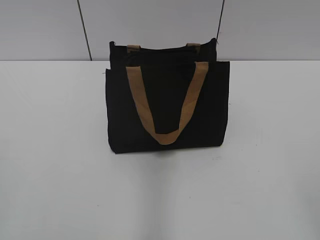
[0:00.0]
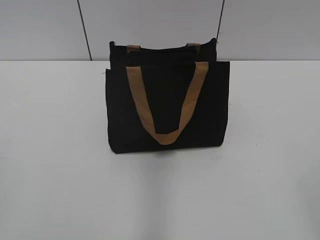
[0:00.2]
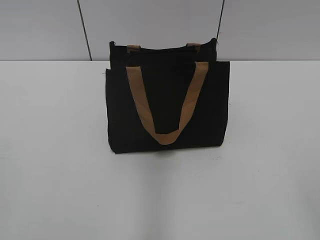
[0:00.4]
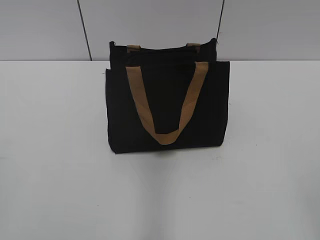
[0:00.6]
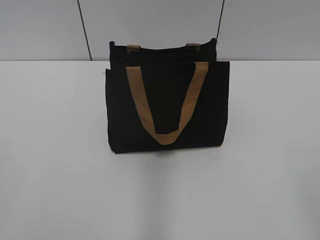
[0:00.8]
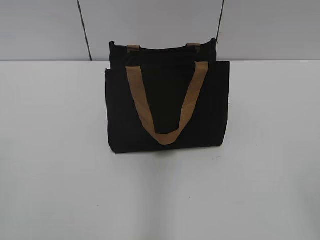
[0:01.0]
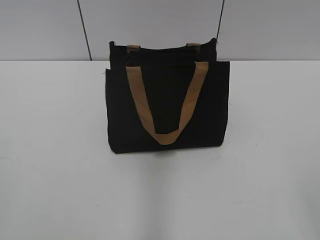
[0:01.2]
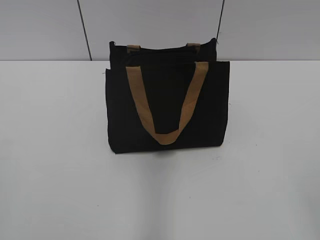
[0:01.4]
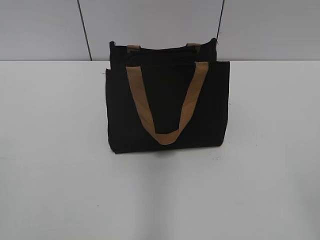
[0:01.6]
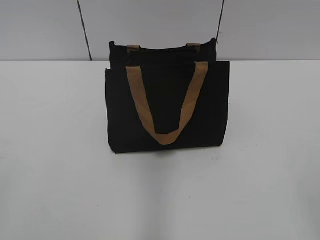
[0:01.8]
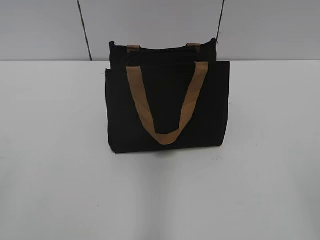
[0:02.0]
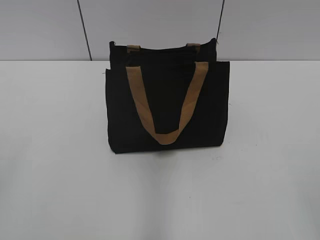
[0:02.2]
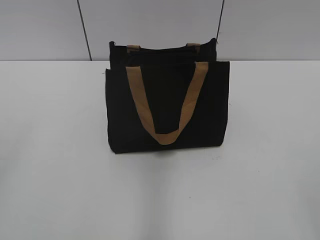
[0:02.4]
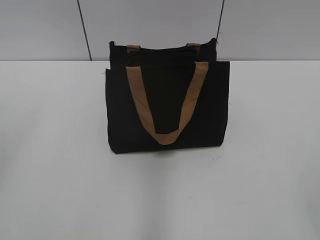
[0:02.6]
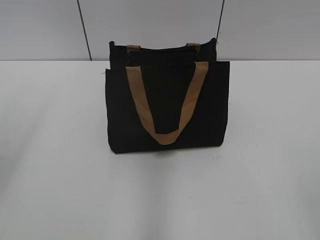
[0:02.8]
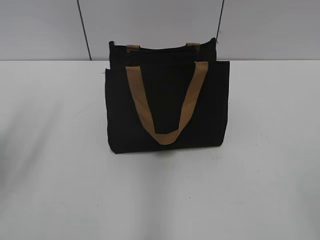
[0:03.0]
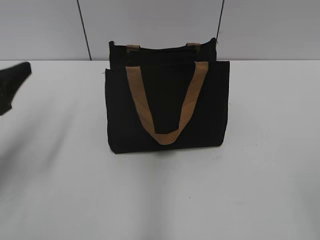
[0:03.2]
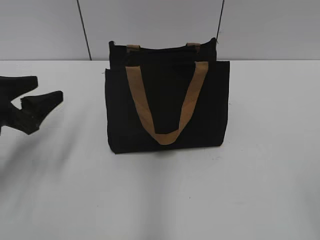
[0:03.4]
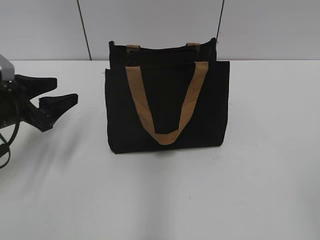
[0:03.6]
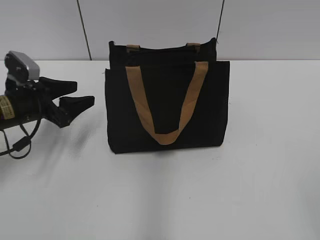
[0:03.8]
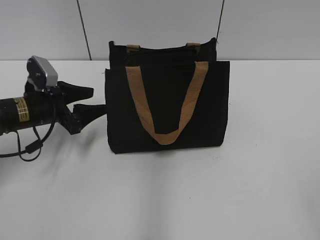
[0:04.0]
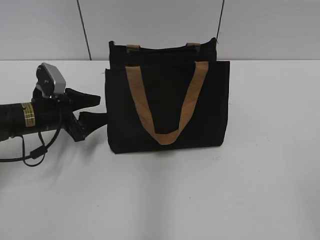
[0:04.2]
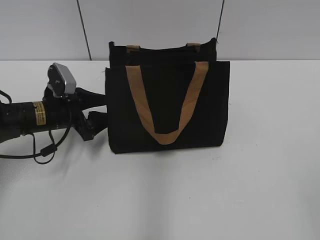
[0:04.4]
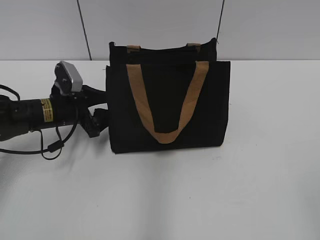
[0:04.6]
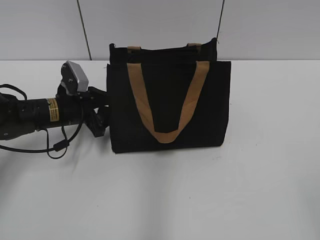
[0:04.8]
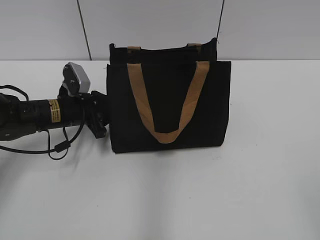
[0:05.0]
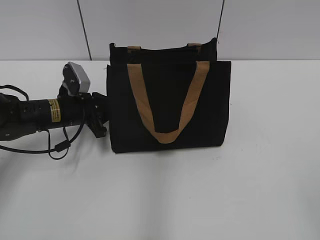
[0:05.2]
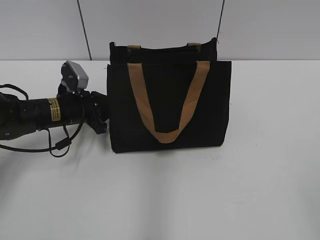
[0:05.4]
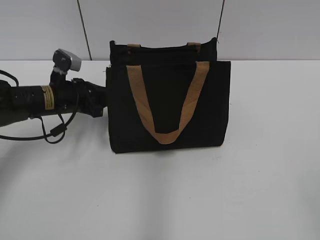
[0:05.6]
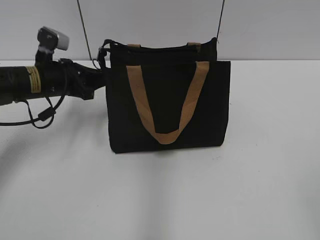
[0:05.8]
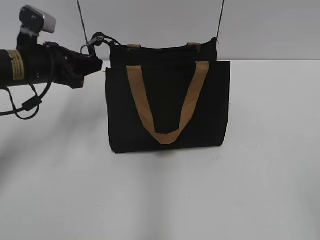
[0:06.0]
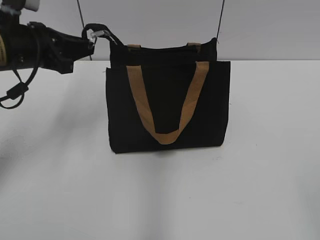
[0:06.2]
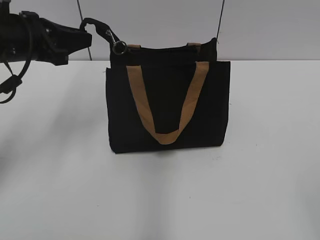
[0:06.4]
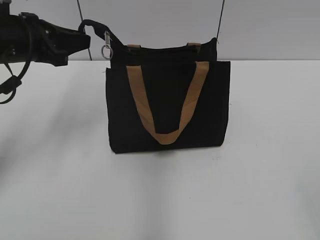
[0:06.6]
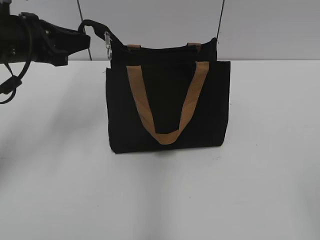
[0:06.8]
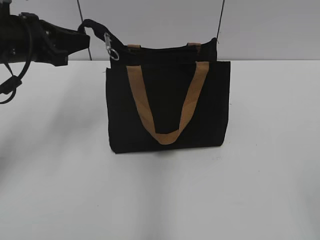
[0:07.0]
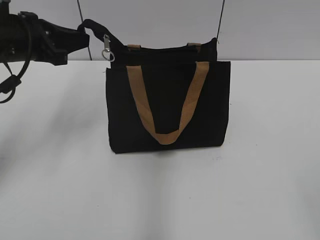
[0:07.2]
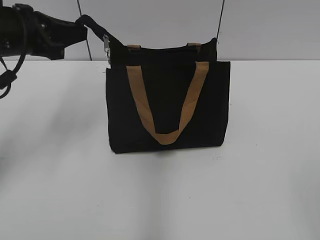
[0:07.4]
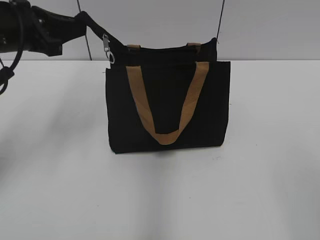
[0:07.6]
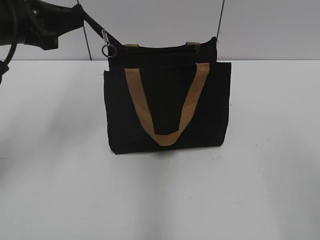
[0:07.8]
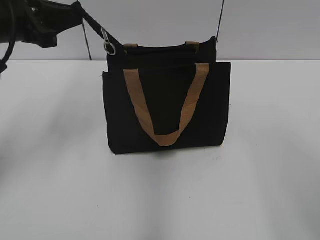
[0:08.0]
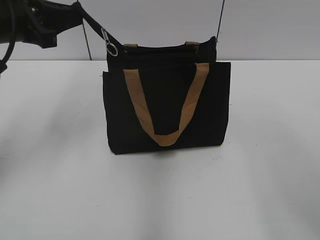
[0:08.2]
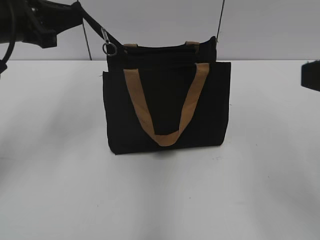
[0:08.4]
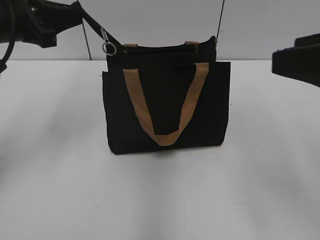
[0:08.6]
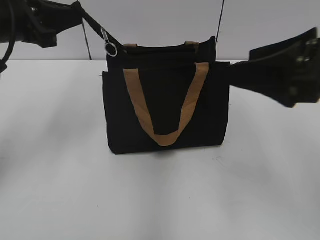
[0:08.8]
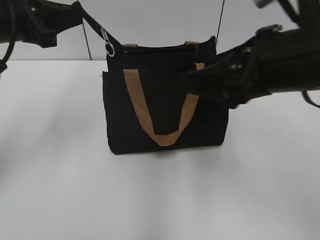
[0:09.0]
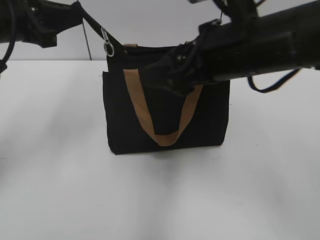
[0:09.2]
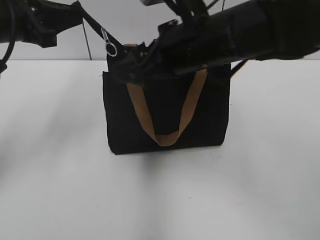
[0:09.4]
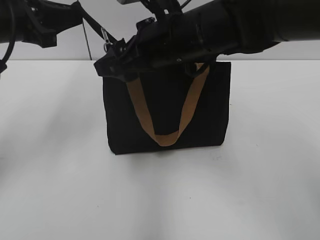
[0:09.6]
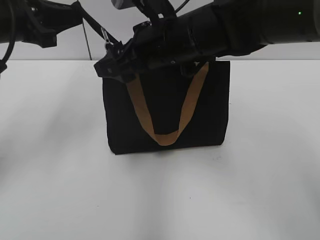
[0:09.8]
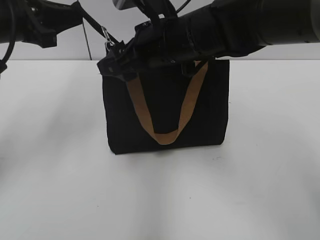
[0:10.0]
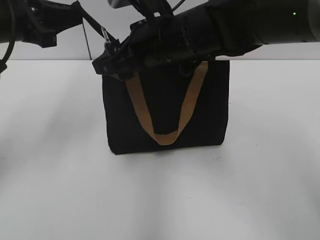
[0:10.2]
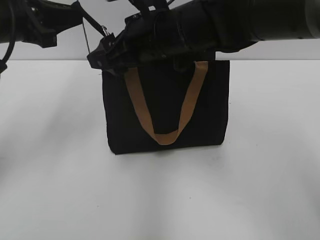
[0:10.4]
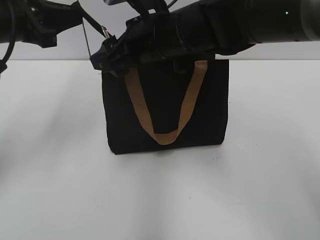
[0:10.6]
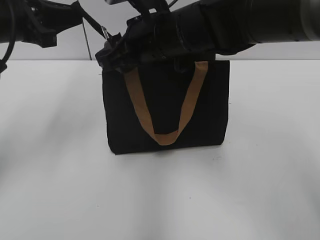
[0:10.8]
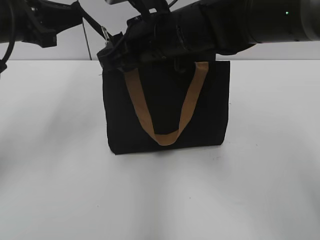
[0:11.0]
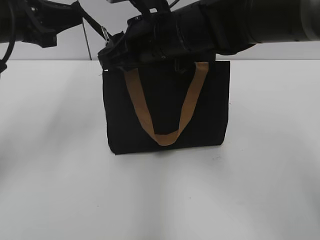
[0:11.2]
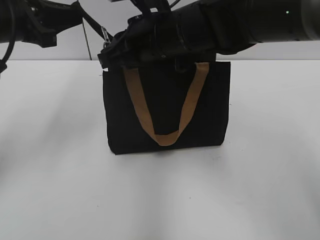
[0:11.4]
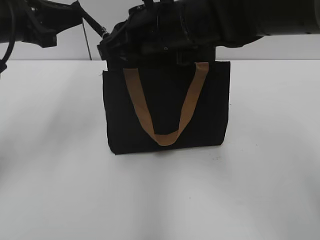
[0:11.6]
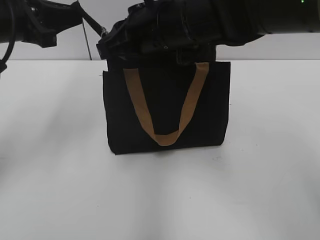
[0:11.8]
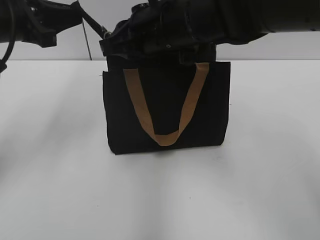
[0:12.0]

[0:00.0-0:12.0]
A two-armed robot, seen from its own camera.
0:01.6 to 0:03.0: The left gripper moves forward, about 15 cm, and opens up.
0:03.0 to 0:04.4: The left gripper goes about 30 cm downward, forward and to the right.
0:04.4 to 0:06.0: The left gripper is displaced upward by roughly 10 cm, and closes up.
0:06.0 to 0:07.6: The left gripper heads upward, covering about 10 cm.
0:07.6 to 0:09.0: The right gripper heads forward and to the left, covering some 20 cm.
0:09.0 to 0:10.4: The right gripper travels to the left and forward by some 20 cm.
0:10.4 to 0:12.0: The right gripper closes.

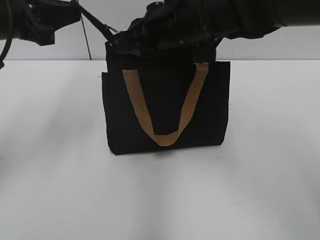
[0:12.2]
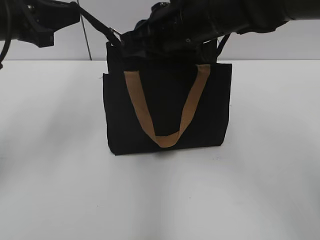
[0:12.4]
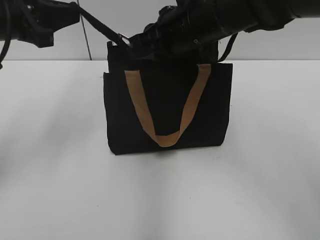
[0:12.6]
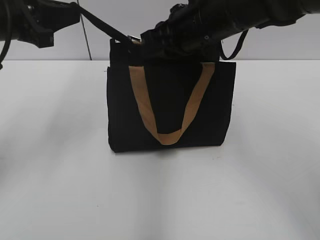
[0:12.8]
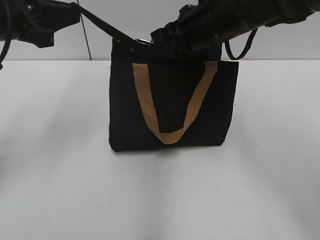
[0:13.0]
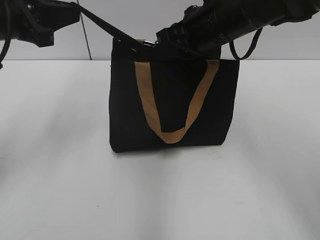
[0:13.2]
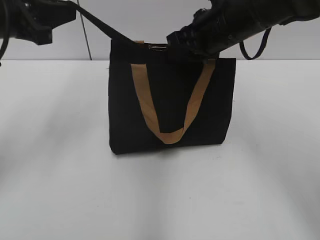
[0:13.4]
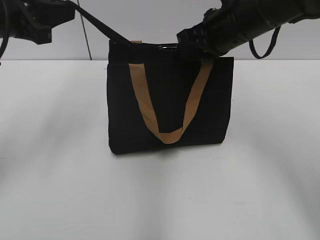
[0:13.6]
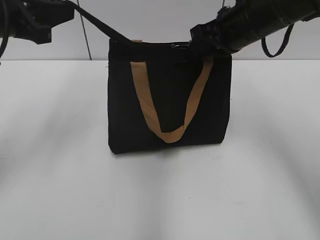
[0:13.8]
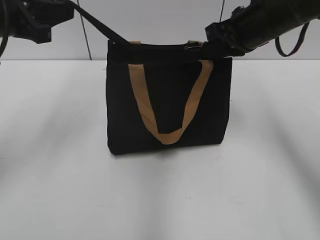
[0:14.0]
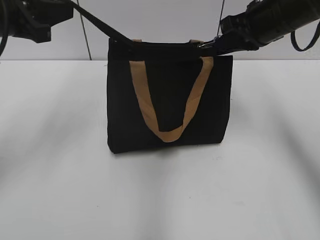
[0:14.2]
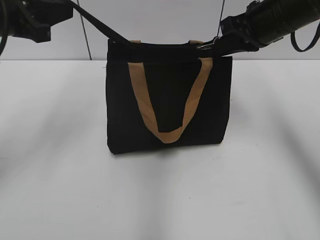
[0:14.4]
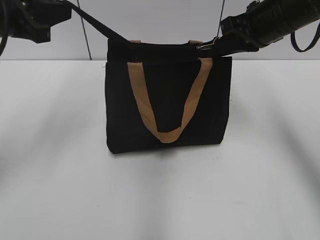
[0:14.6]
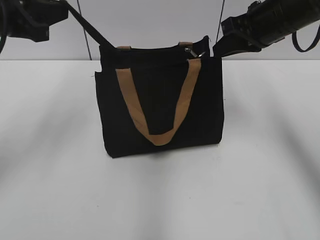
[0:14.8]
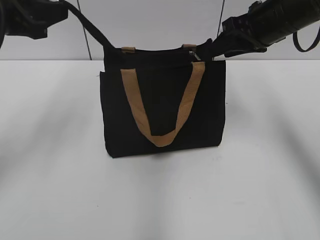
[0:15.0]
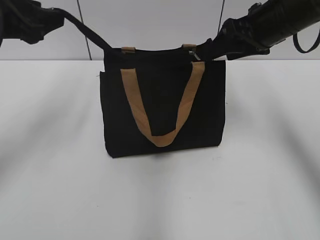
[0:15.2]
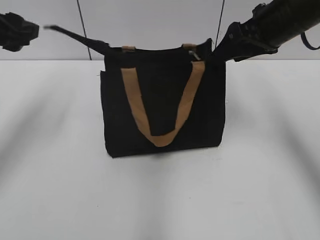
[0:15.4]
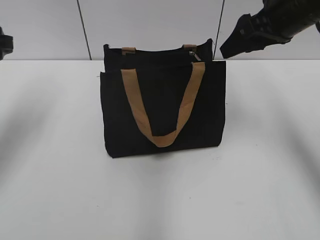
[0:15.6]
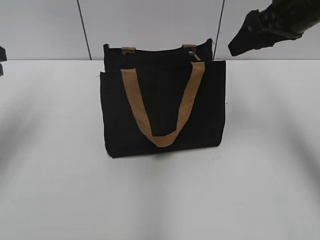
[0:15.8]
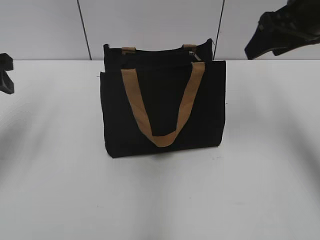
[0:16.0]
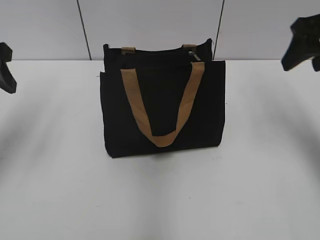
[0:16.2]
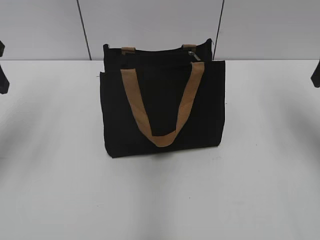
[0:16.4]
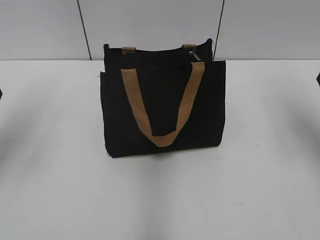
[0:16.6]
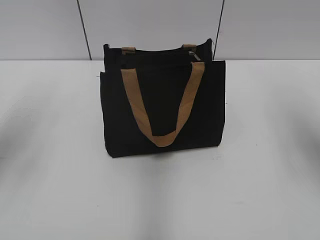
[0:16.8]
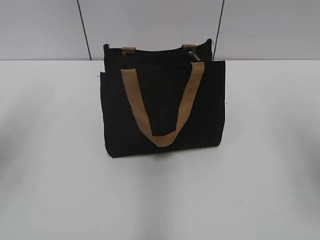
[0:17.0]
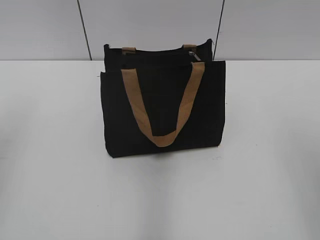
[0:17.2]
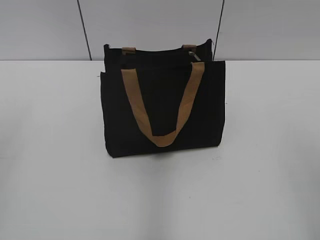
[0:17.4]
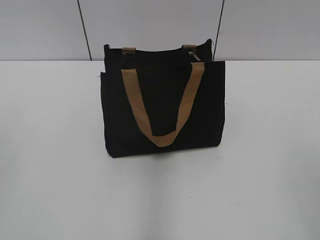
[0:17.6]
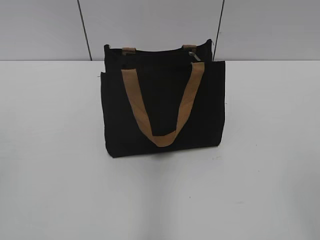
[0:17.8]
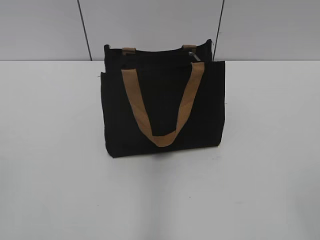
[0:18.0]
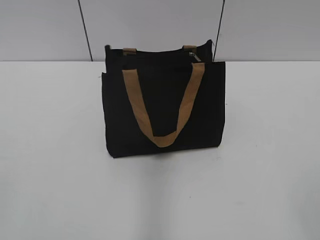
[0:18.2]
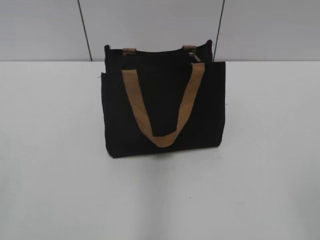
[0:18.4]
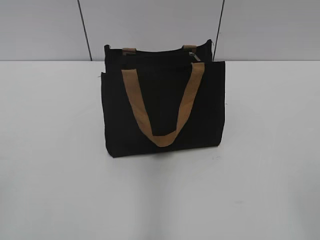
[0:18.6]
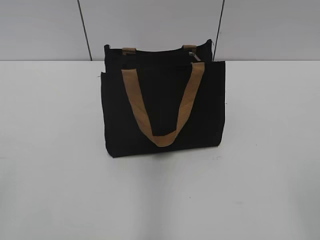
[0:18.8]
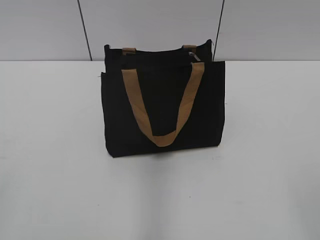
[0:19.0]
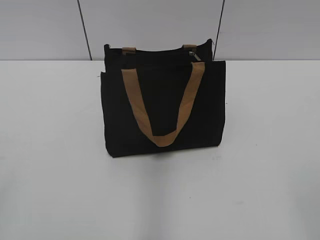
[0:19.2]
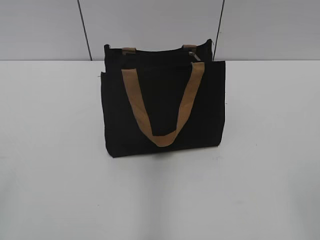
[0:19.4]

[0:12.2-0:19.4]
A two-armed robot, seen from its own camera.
Step, 0:12.2 to 0:14.6: Zip up the bag with your right hand.
Step, 0:15.0 to 0:15.4: Grab the zipper with your left hand.
0:12.2 to 0:13.6: The right gripper moves to the right, some 10 cm.
0:13.6 to 0:15.0: The right gripper shifts roughly 10 cm to the right, and opens.
0:15.0 to 0:16.6: The left gripper changes place by approximately 5 cm, and opens its fingers. Meanwhile the right gripper moves to the right and backward, roughly 15 cm, and opens its fingers.
0:16.6 to 0:18.0: Both grippers move backward, approximately 30 cm.

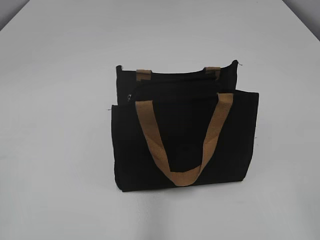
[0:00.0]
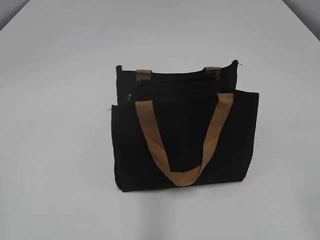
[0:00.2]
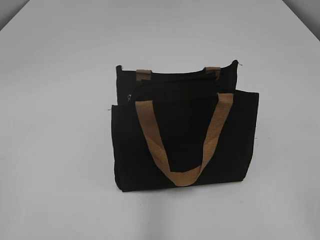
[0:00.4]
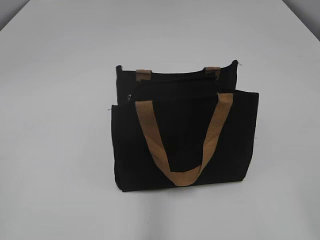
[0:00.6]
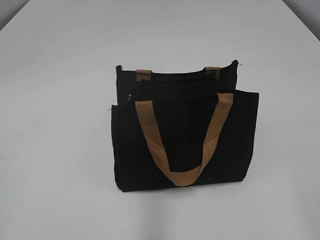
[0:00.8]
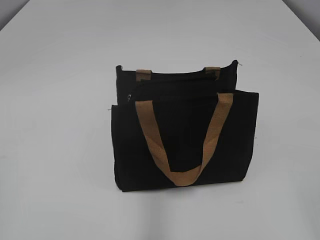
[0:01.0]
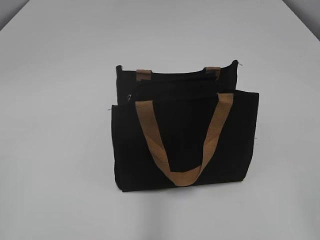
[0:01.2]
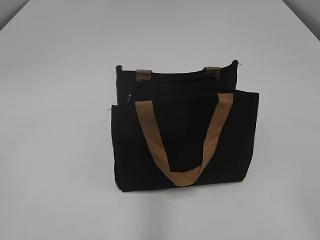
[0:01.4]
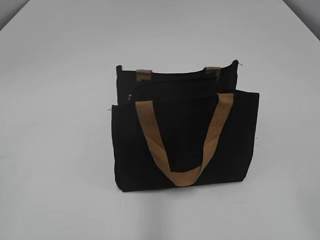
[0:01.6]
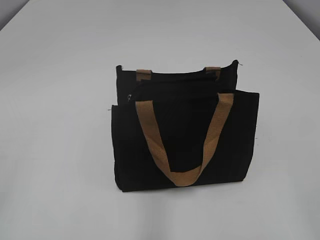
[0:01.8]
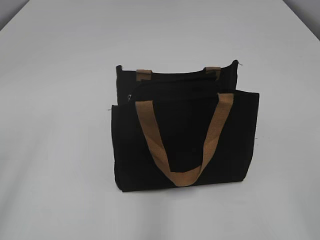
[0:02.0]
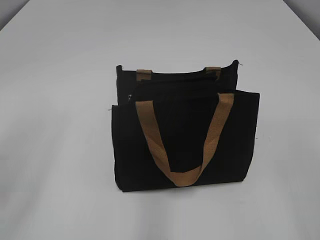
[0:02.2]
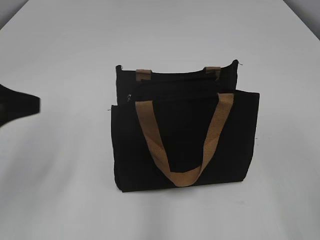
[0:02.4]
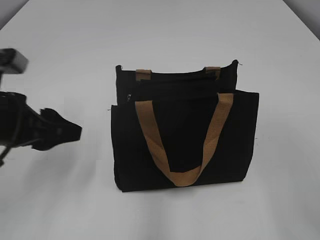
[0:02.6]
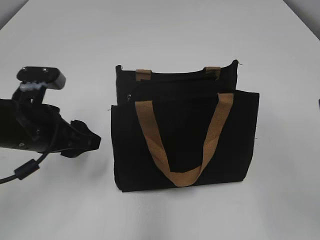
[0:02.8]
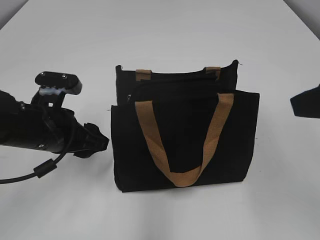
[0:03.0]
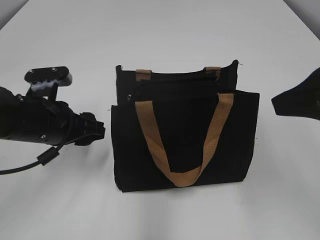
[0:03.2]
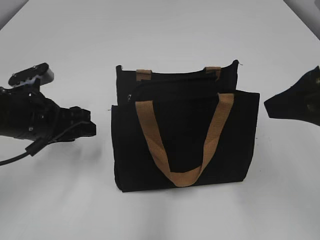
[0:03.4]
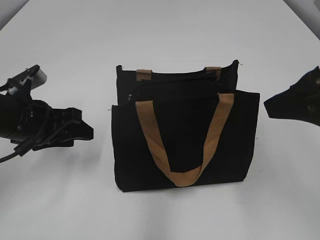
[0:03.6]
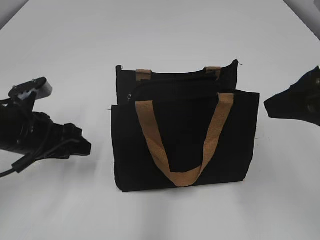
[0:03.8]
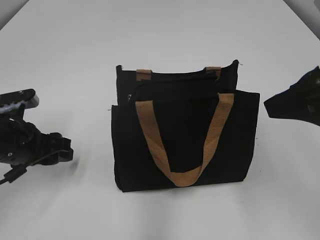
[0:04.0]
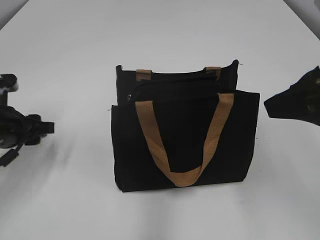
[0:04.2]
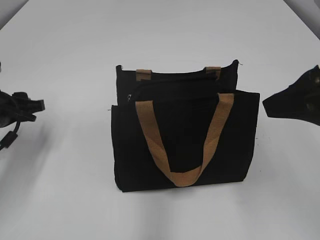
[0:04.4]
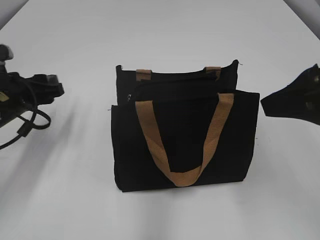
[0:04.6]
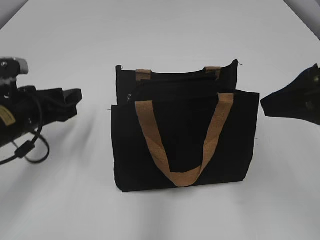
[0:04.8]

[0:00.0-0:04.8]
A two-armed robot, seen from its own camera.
0:01.6 to 0:03.2: The right gripper travels forward by some 20 cm; the left gripper is displaced forward, to the right and downward by some 30 cm, and opens up.
0:03.2 to 0:04.8: The left gripper heads to the left, covering some 5 cm.
